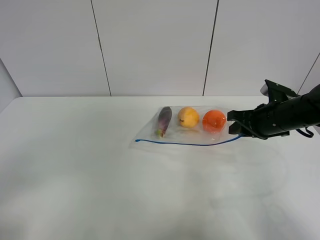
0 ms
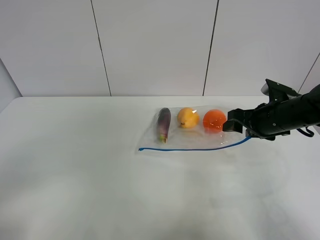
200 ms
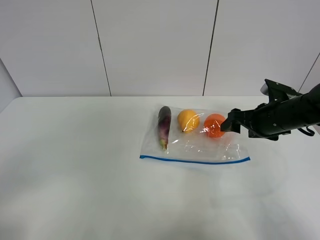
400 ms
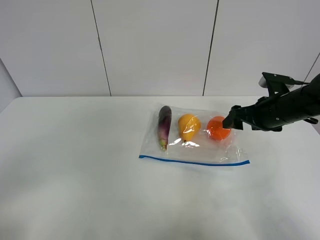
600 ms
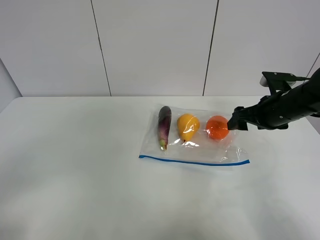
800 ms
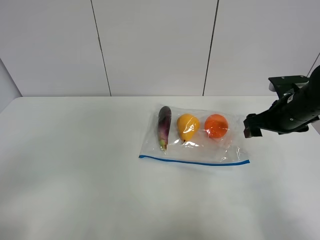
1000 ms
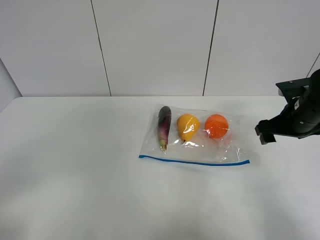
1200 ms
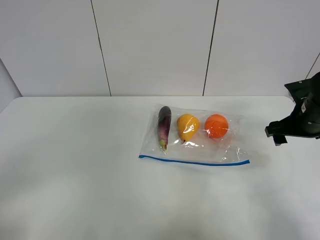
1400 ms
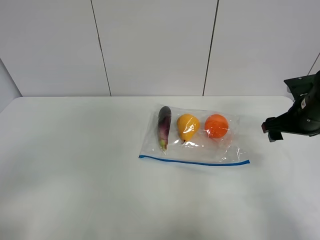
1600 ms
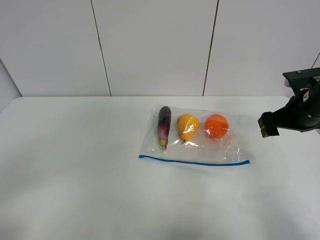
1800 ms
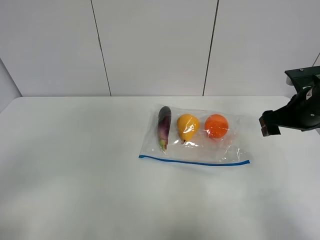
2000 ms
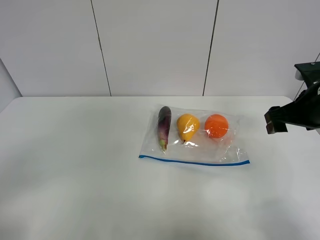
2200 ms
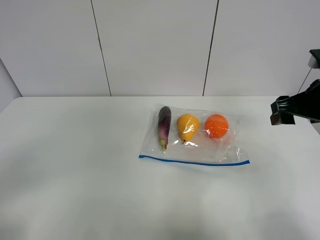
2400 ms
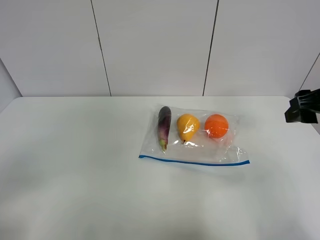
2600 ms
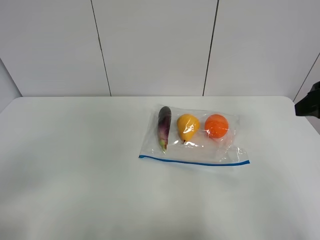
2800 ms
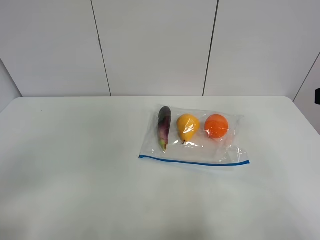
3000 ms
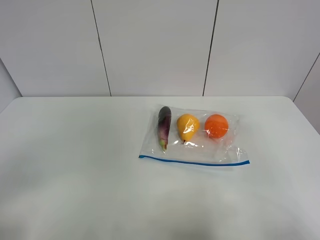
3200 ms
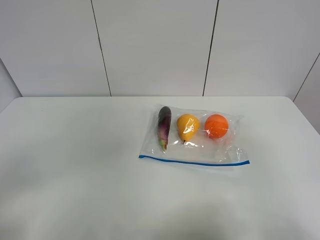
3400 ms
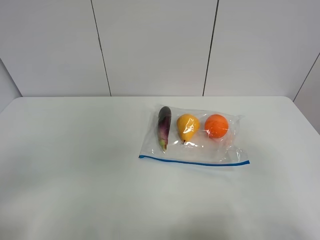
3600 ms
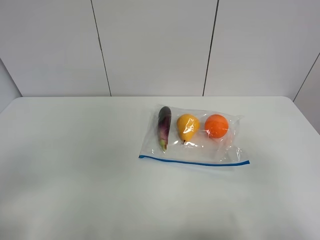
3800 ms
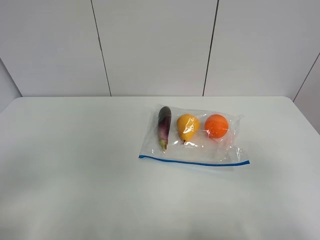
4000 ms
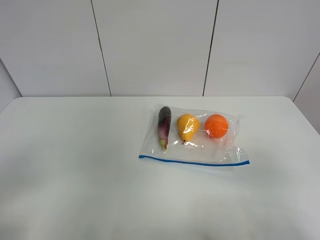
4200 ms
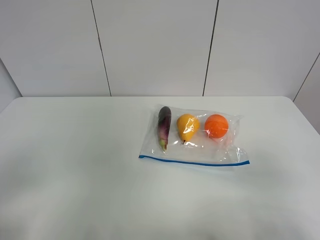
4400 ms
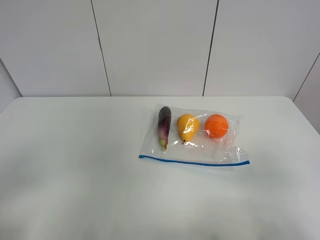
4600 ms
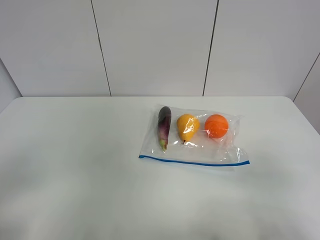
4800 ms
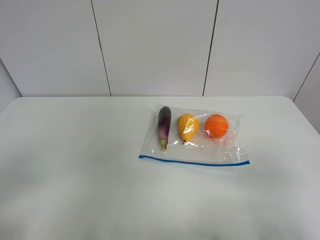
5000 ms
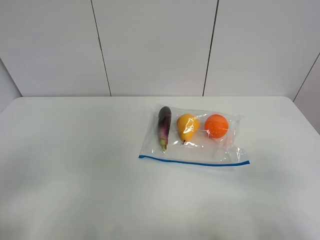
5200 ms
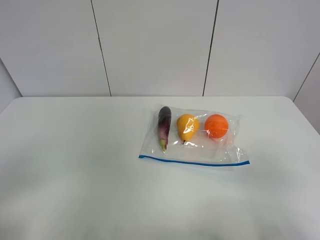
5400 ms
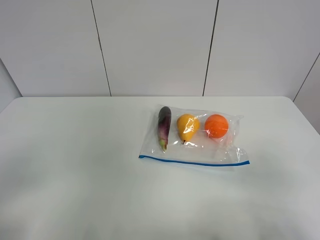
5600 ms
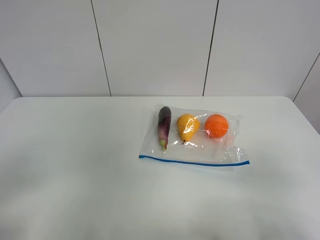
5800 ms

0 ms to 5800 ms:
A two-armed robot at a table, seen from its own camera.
0 ms to 1400 ms: The right gripper goes some 5 cm to the right, and opens its fingers.
1400 ms to 2800 ms: The right gripper heads upward and backward, covering approximately 20 cm.
2800 ms to 4400 ms: The right gripper is displaced backward by roughly 20 cm.
4400 ms to 5800 ms: Both grippers stay put.

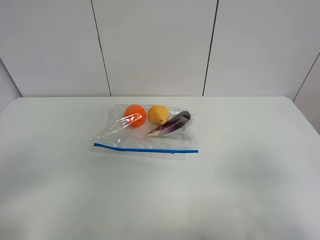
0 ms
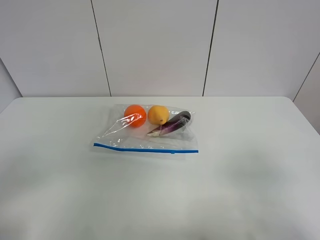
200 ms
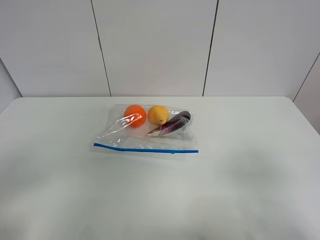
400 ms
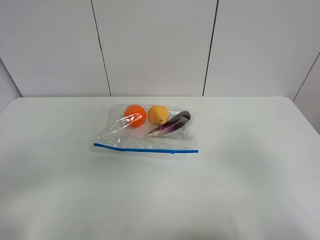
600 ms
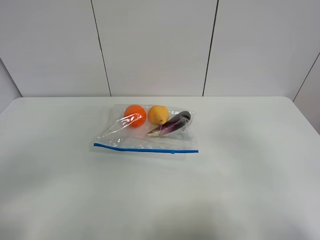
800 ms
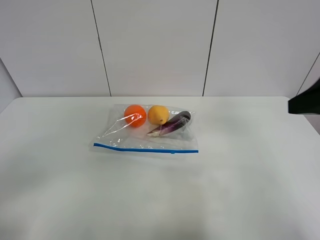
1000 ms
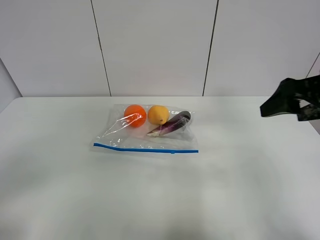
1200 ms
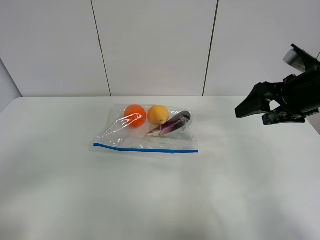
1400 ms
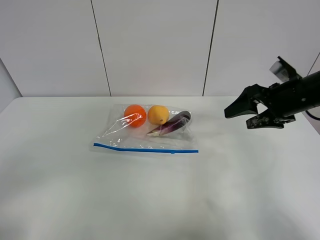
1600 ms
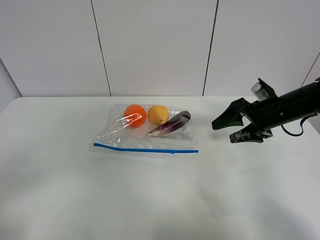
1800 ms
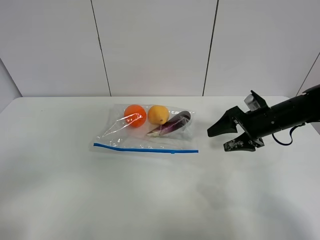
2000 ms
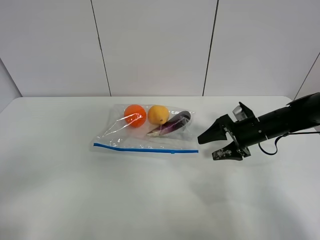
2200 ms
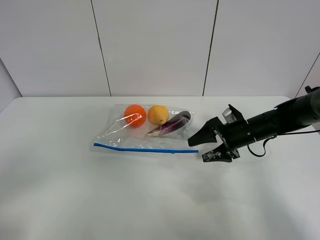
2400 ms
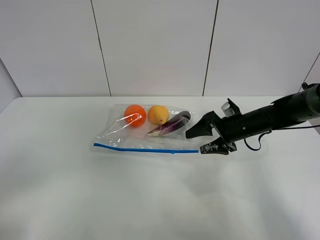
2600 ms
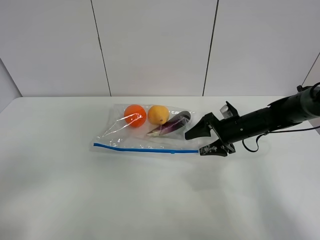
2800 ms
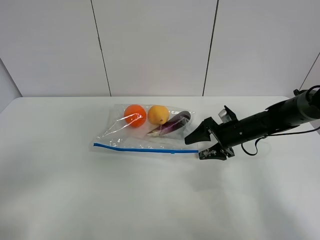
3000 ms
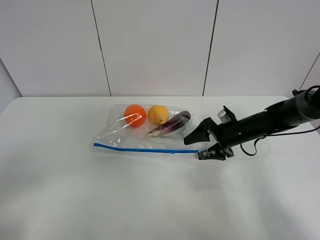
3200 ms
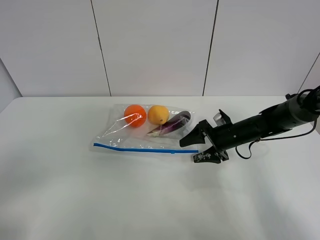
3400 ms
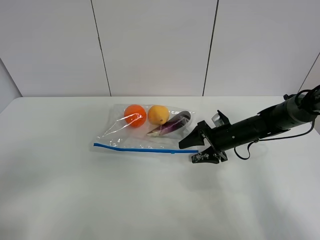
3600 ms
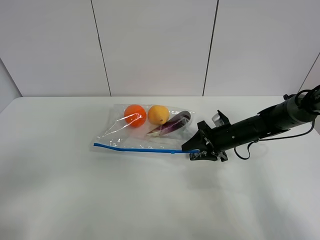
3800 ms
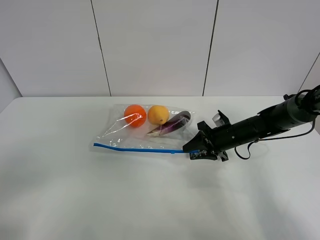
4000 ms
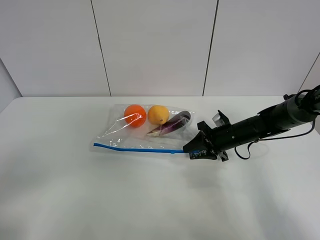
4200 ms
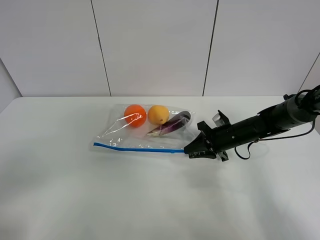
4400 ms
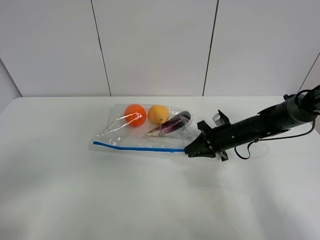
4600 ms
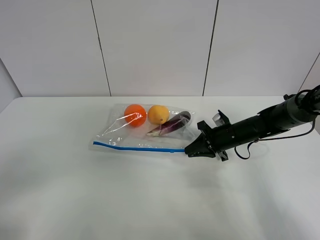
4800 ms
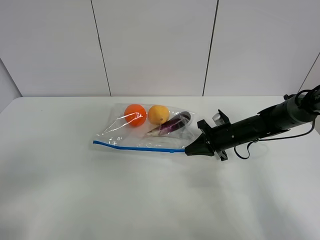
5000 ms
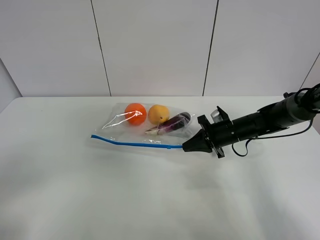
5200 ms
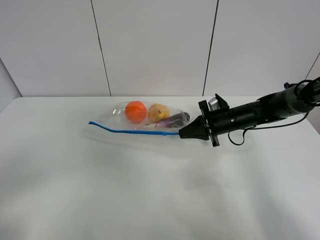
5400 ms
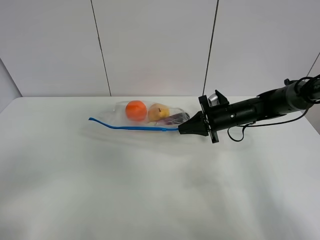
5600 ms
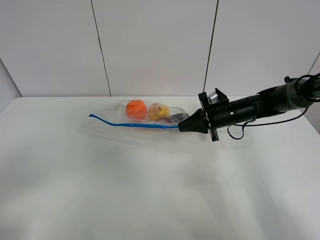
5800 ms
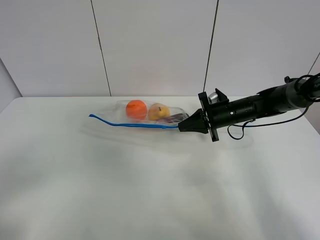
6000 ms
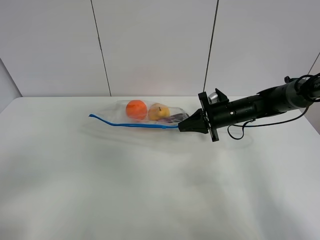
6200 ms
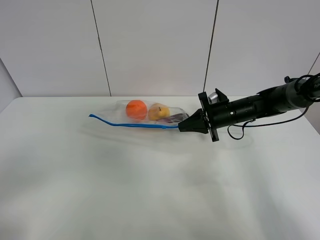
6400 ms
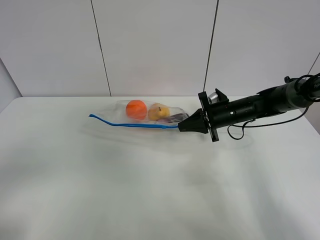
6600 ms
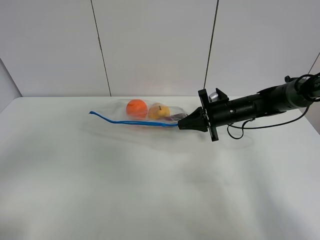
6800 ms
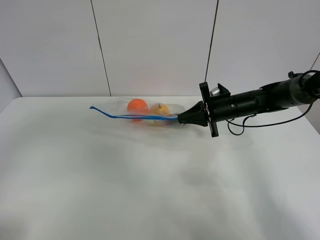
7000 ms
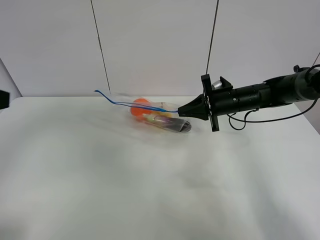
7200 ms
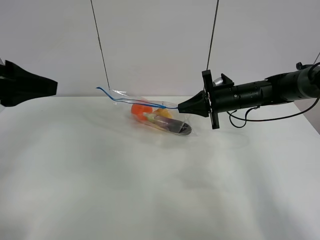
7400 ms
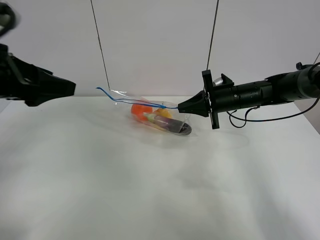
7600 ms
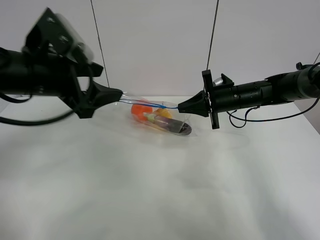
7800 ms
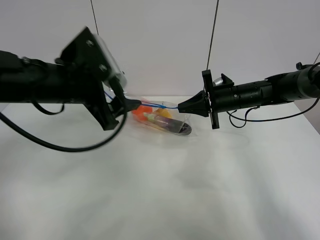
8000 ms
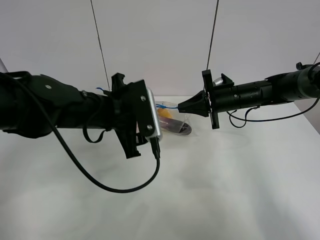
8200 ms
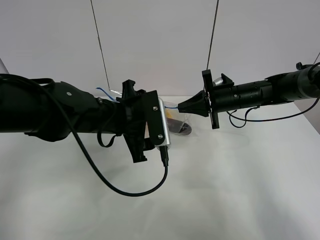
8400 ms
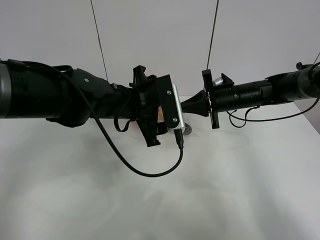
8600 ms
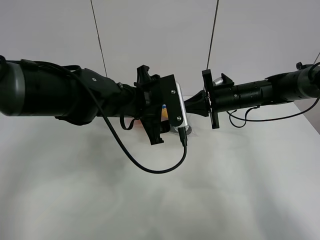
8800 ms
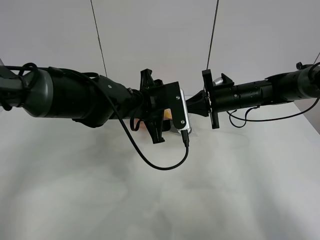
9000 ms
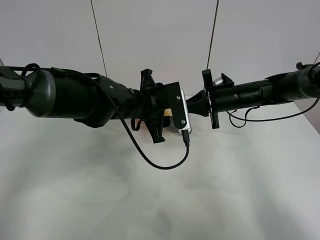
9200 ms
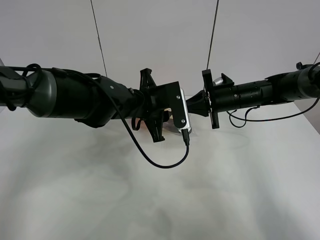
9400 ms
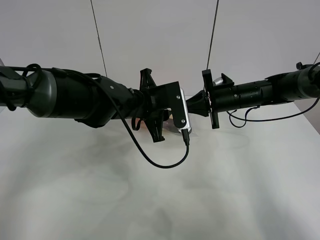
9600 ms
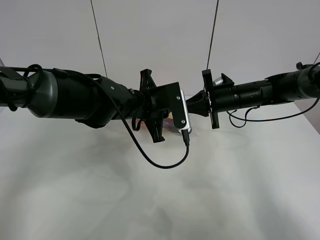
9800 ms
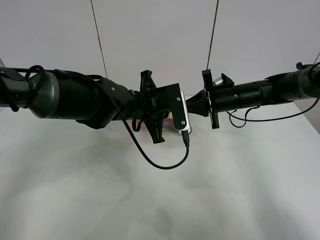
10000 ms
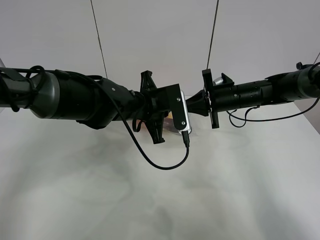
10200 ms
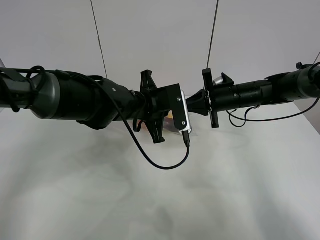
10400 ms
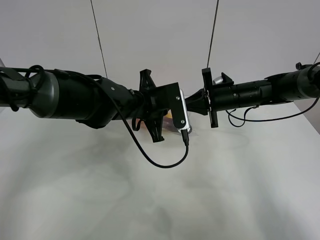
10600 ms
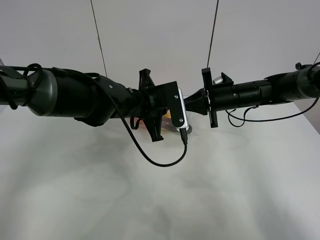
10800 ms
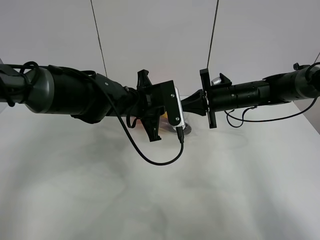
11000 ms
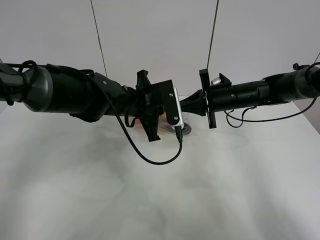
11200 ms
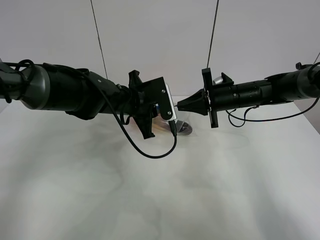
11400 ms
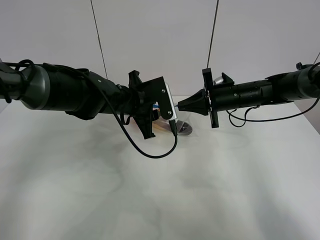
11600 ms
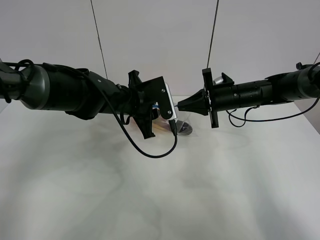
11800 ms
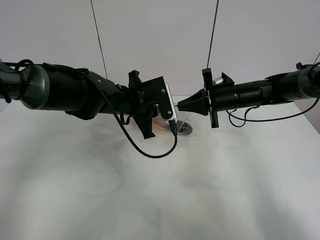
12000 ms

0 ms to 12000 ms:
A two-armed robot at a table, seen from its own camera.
Step, 0 ms to 4800 ms: Grasp the fruit bag with right gripper.
Step, 5000 ms to 7200 ms: Lift the fruit bag with your right gripper.
0 ms to 1600 ms: The right gripper shifts some 30 cm forward.
1600 ms to 3000 ms: The right gripper travels downward by roughly 15 cm.
3000 ms to 4400 ms: The right gripper closes its fingers.
4400 ms to 6000 ms: The right gripper ends up some 5 cm from where it was.
6000 ms to 7600 ms: The left gripper shifts some 25 cm forward.
7600 ms to 9000 ms: The left gripper is displaced to the right, downward and forward by roughly 25 cm.
9000 ms to 10400 ms: The left gripper closes up.
10400 ms to 12000 ms: The grippers stay close to where they were, moving slightly.

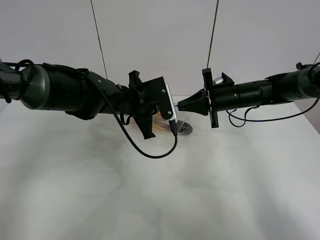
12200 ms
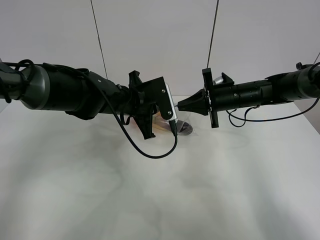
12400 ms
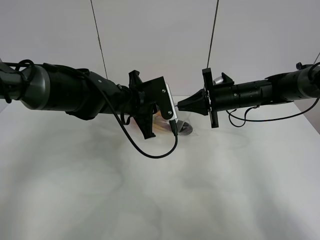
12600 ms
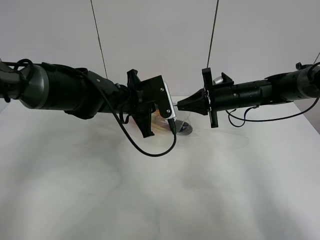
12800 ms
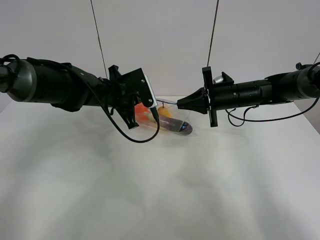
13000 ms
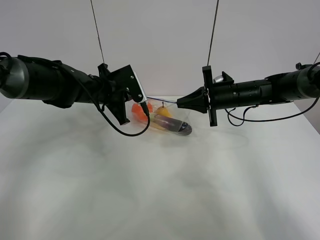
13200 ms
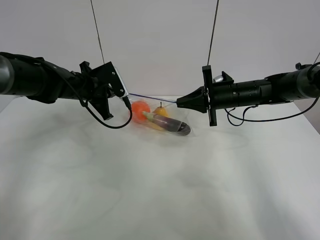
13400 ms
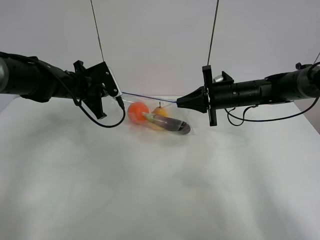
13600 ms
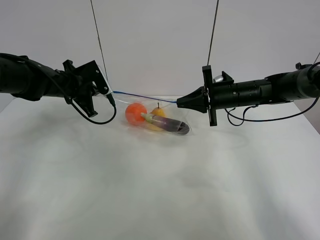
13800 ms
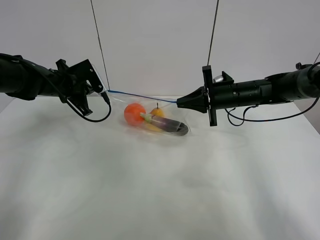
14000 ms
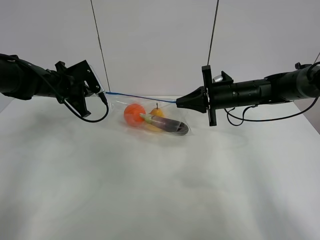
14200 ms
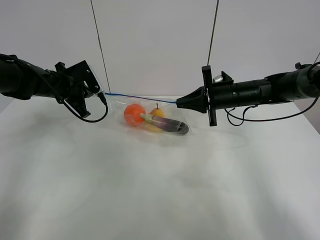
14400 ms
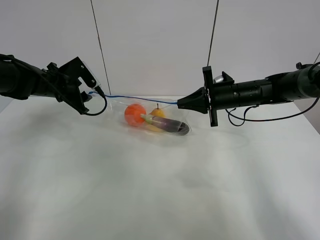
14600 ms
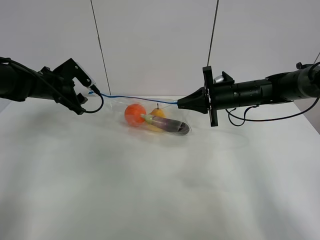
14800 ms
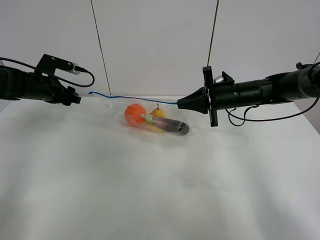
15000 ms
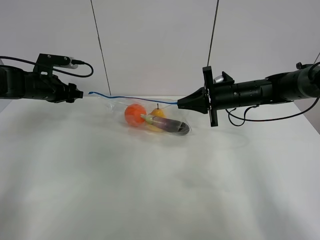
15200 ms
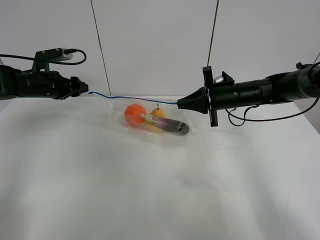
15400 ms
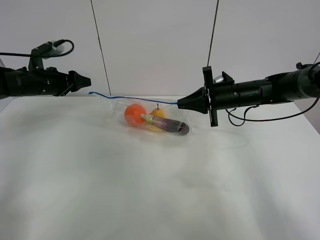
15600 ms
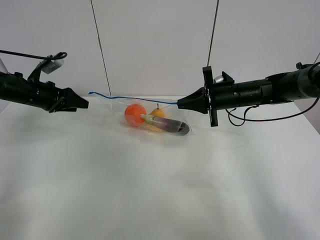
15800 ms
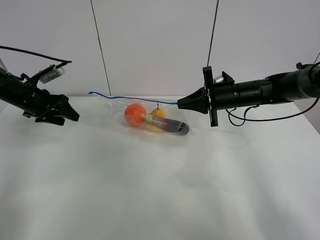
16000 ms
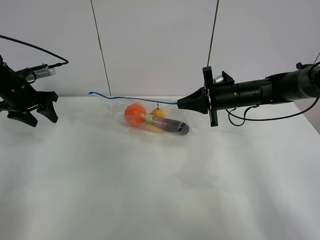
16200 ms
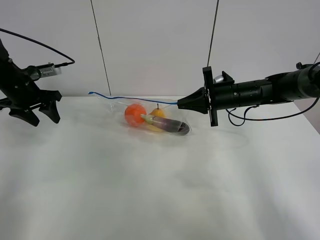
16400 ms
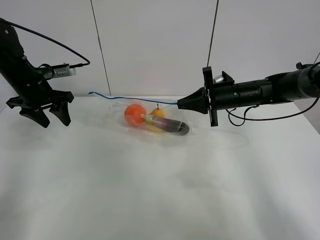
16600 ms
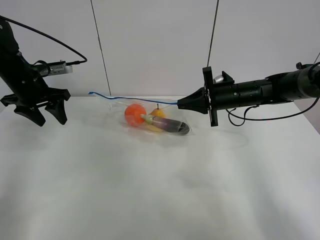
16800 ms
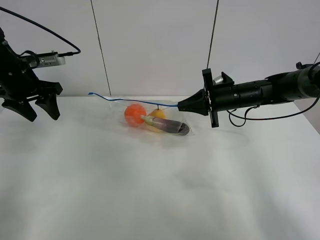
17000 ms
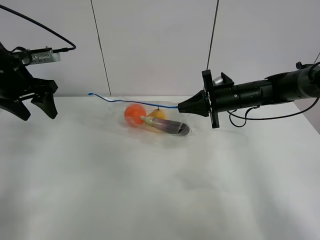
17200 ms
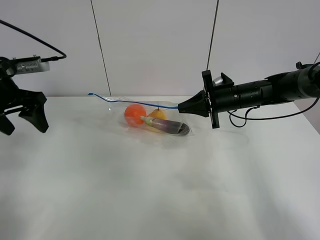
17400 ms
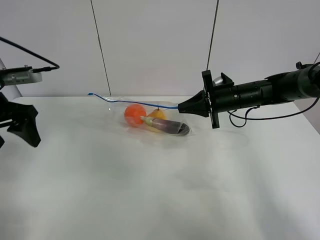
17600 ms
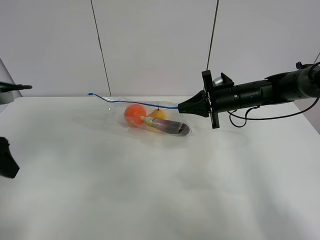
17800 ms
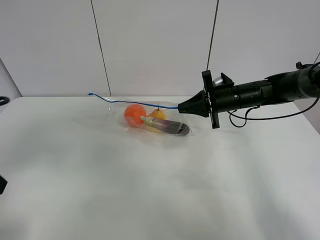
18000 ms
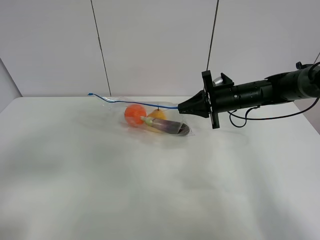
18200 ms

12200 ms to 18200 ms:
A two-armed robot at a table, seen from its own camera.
Step, 12200 ms to 14600 ms: Pull the fruit bag with left gripper.
12200 ms to 13800 ms: The left gripper travels to the left by some 15 cm.
13800 ms to 15200 ms: The left gripper is displaced to the left by about 5 cm, and opens its fingers.
15200 ms to 16600 ms: The left gripper heads upward, covering roughly 5 cm.
16600 ms to 18200 ms: The left gripper travels backward by some 30 cm.
